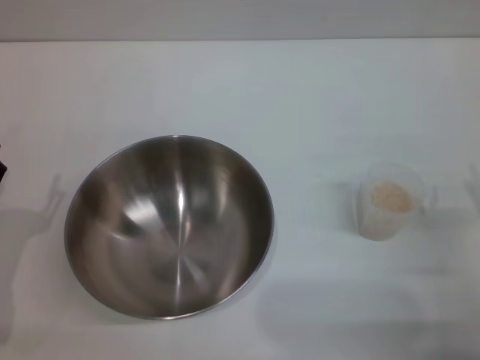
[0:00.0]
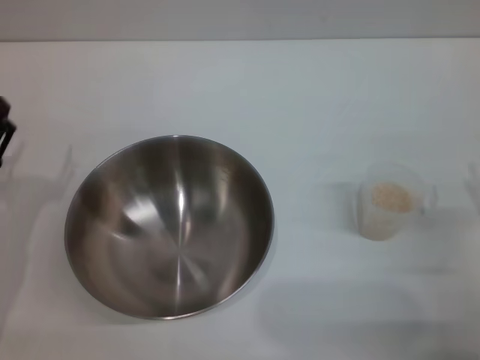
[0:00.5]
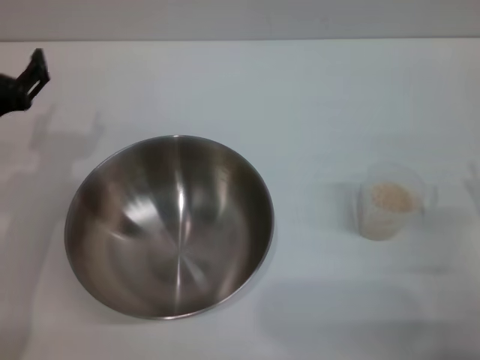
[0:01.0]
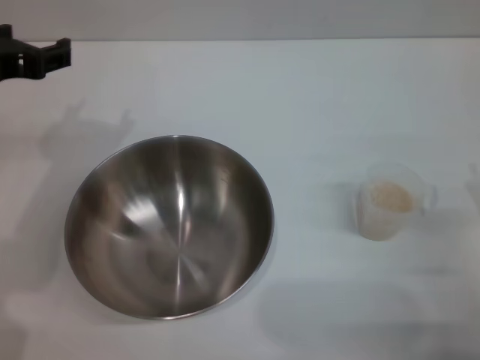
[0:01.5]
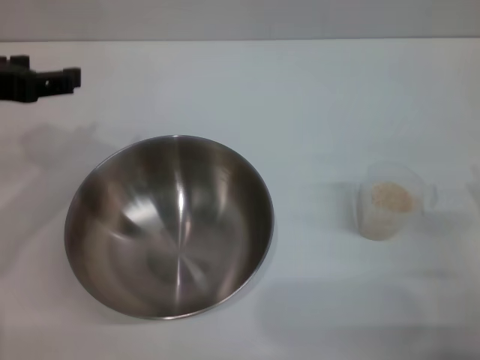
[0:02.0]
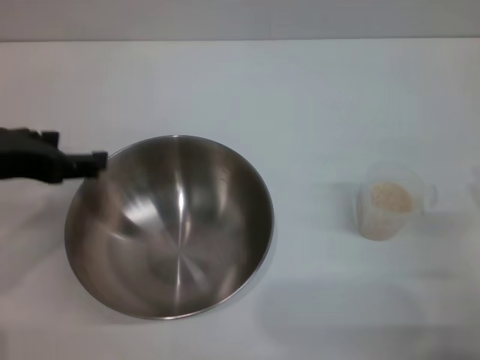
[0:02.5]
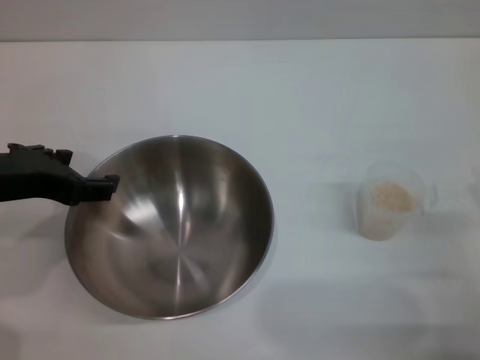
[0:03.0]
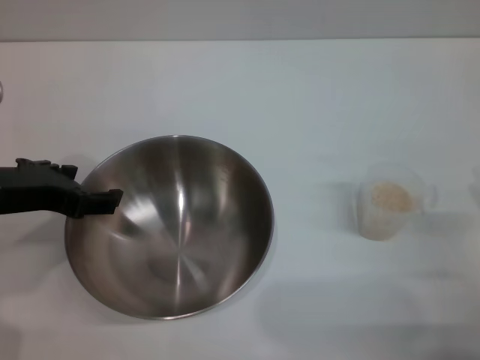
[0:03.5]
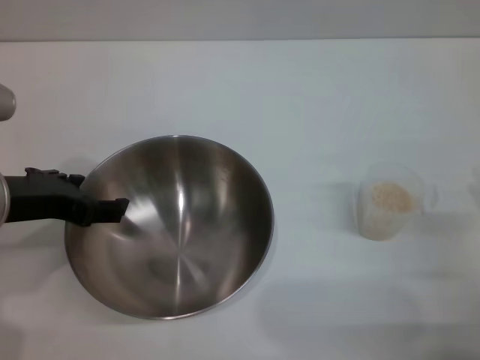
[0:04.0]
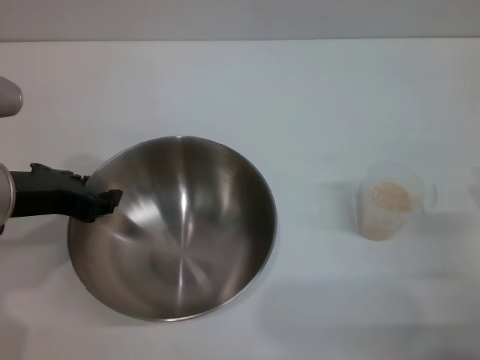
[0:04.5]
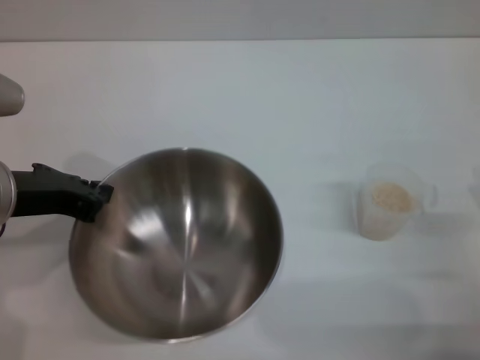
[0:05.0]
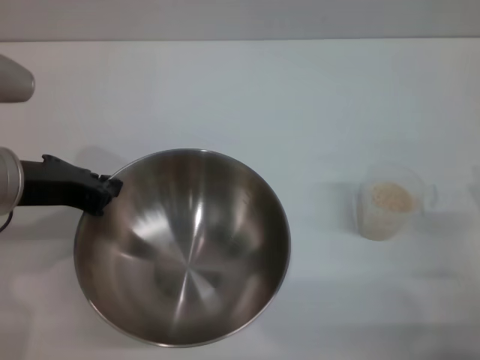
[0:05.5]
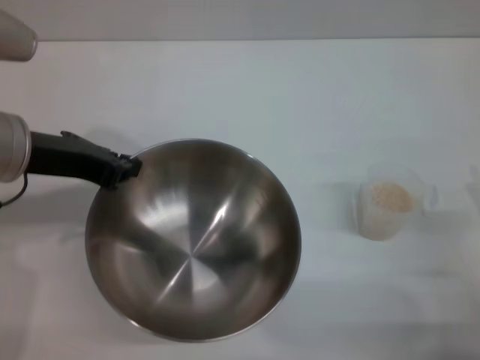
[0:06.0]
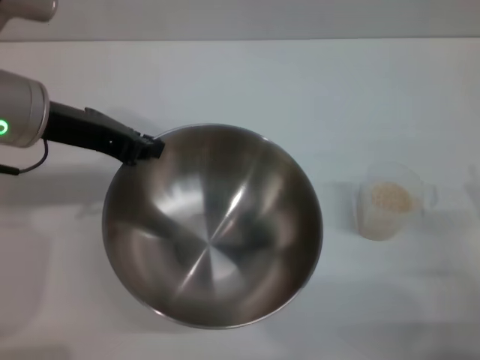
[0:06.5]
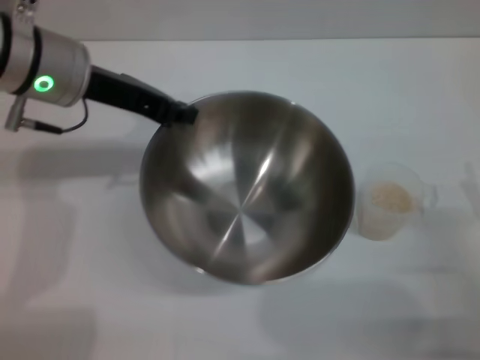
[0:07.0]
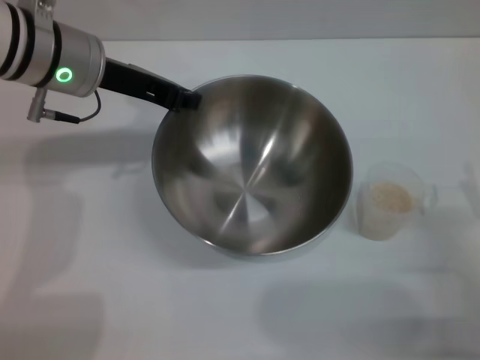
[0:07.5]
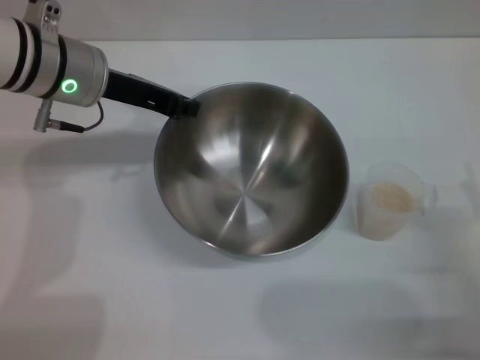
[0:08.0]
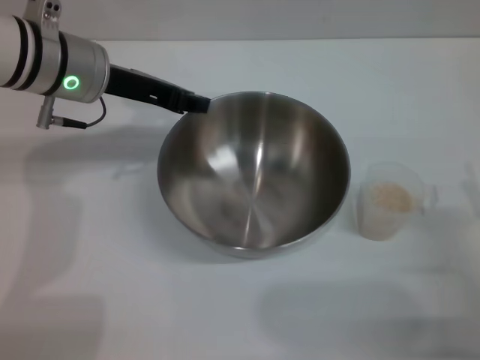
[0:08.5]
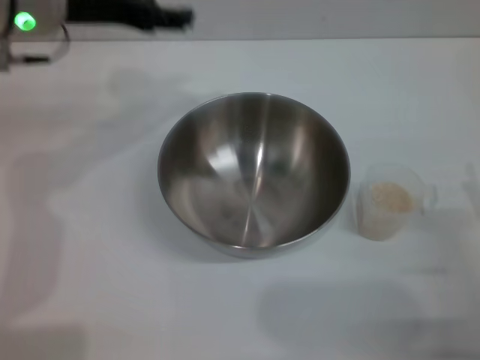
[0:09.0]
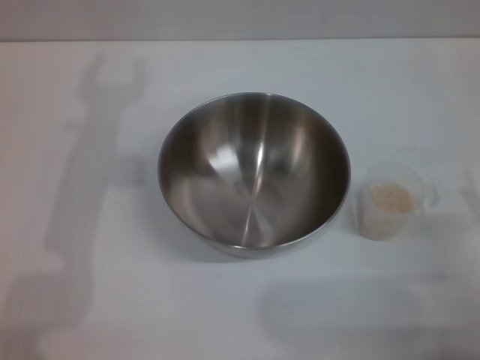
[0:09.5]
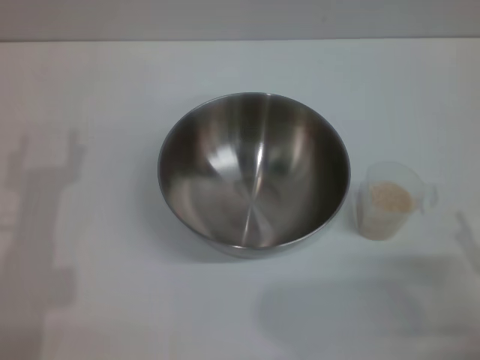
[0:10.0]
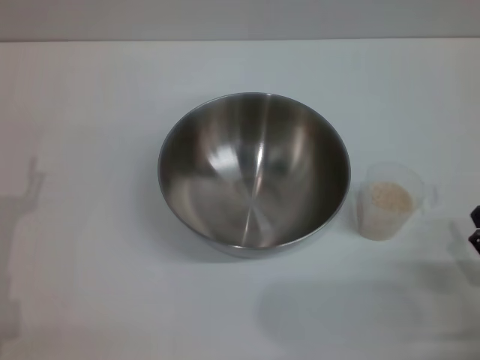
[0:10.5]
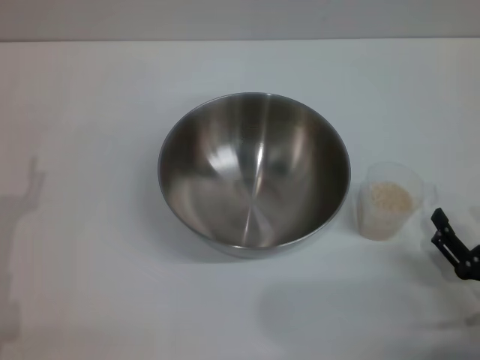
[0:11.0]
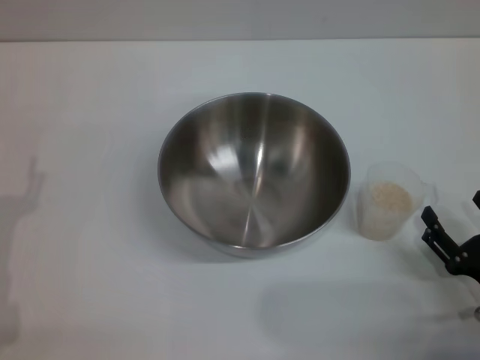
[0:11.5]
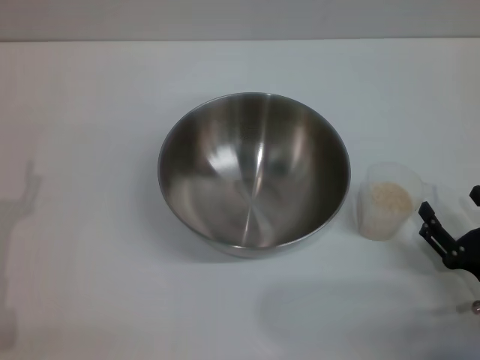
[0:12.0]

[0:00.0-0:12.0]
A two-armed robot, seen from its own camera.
Task of the whole recording: Place the bowl in the middle of the table with one hand and pour the rice from the grain cup into it with the other hand.
Step, 0:07.0 to 0:08.5: Pick up the bowl with the left gripper.
0:00.0 to 0:02.0: The left gripper travels upward and forward by approximately 25 cm.
0:02.0 to 0:04.0: The left gripper is displaced downward by some 5 cm.
0:04.0 to 0:06.0: The left gripper closes.
0:06.0 to 0:08.0: The left gripper travels forward by approximately 10 cm.
0:08.0 to 0:10.0: The right gripper goes approximately 5 cm backward. Meanwhile the left gripper is displaced backward, downward and to the left by some 20 cm, and opens its fingers.
0:10.0 to 0:12.0: The right gripper ends up approximately 5 cm from where it was.

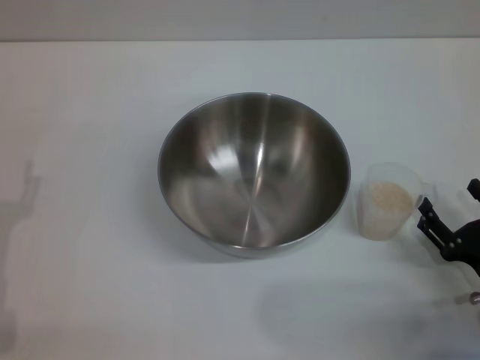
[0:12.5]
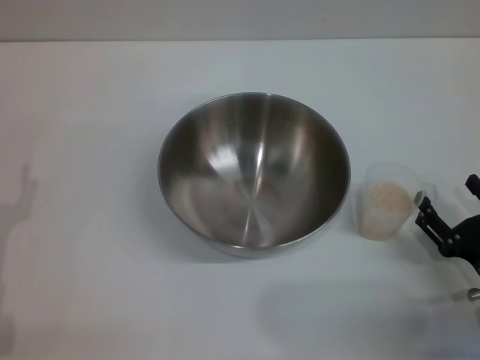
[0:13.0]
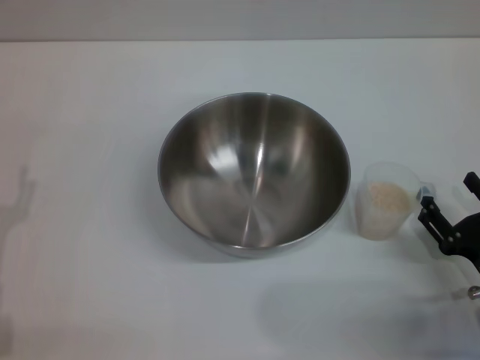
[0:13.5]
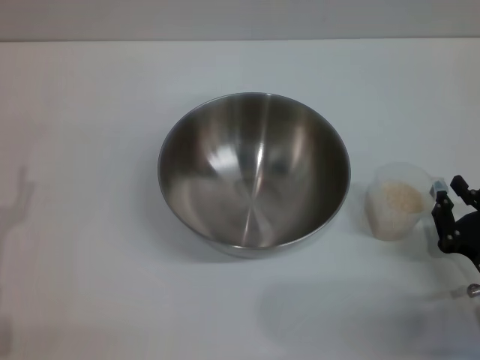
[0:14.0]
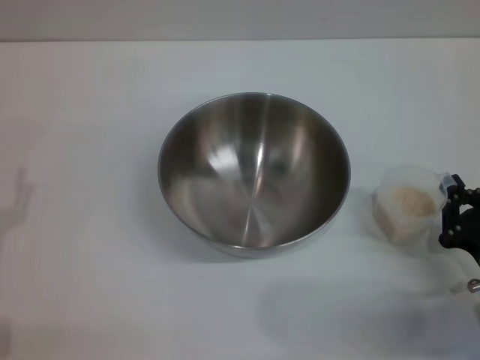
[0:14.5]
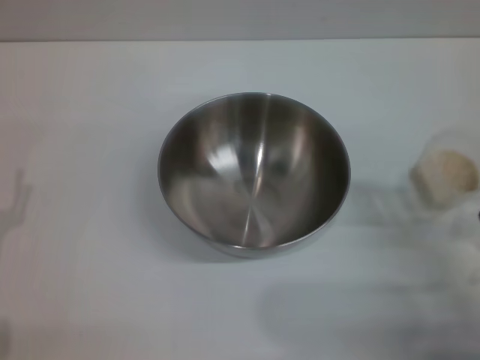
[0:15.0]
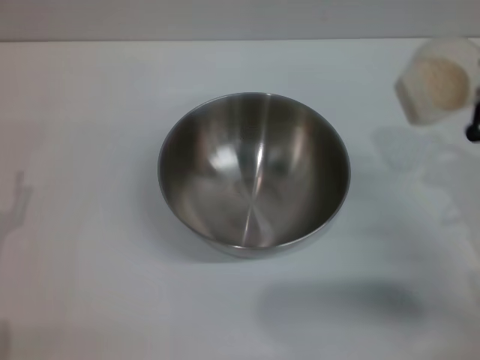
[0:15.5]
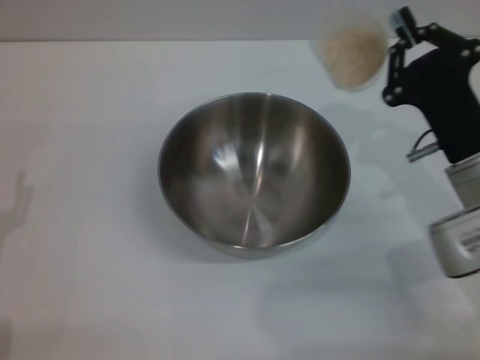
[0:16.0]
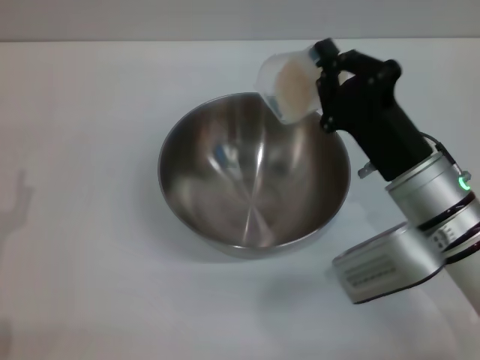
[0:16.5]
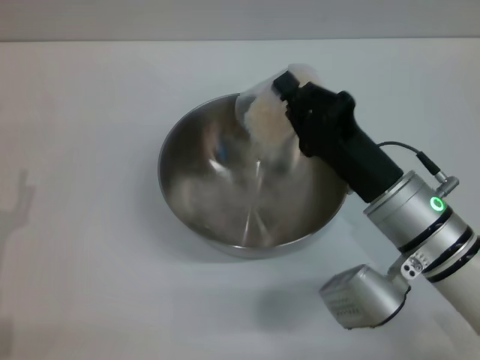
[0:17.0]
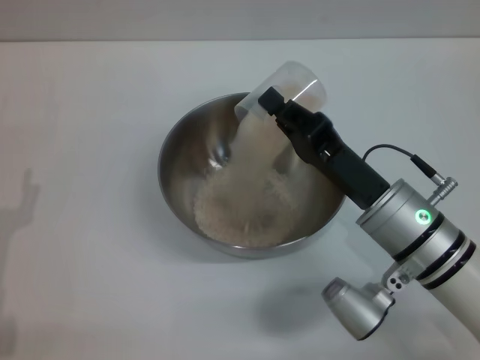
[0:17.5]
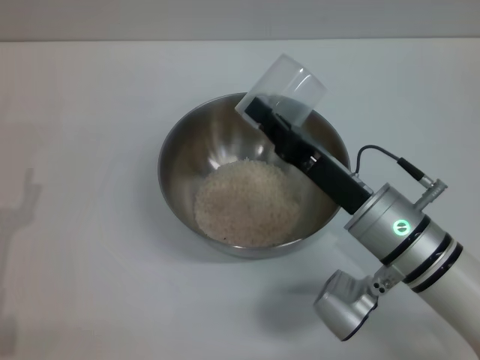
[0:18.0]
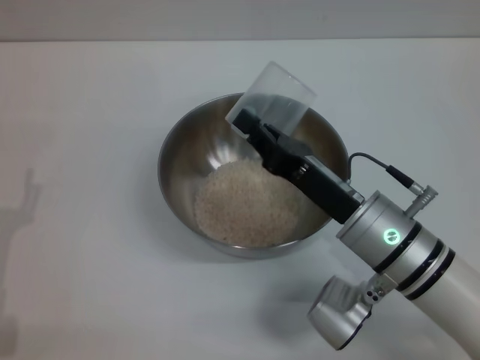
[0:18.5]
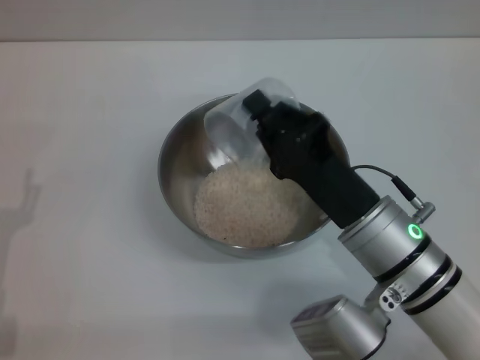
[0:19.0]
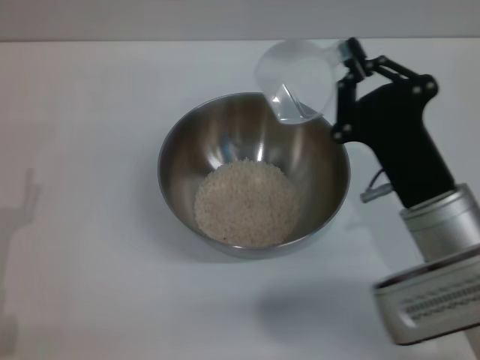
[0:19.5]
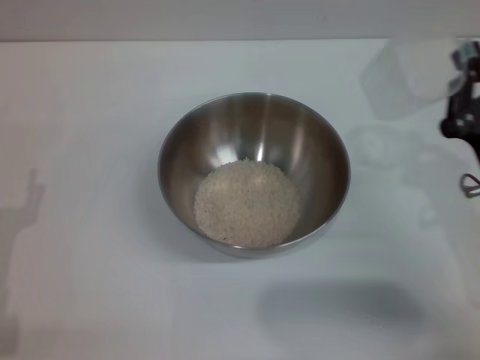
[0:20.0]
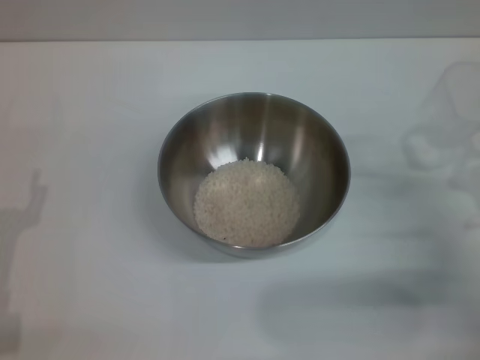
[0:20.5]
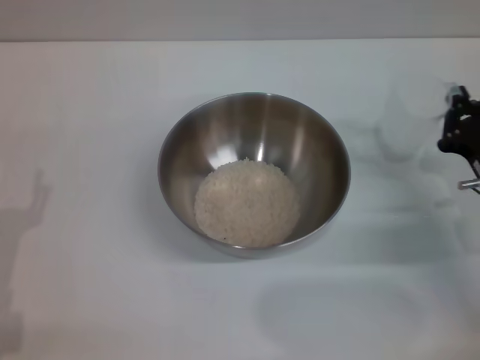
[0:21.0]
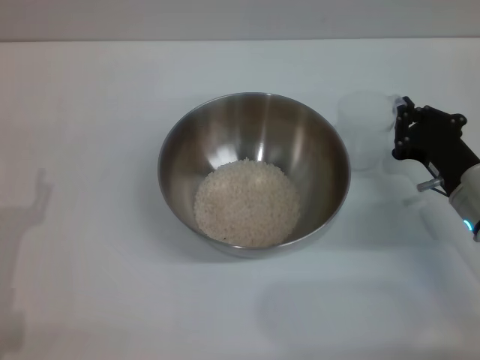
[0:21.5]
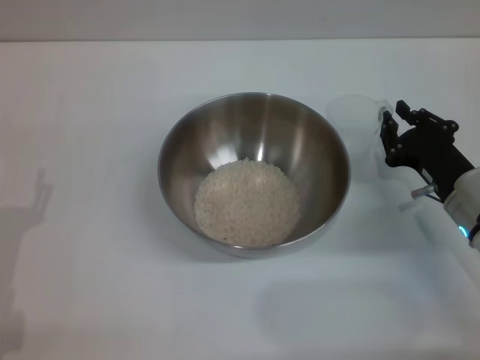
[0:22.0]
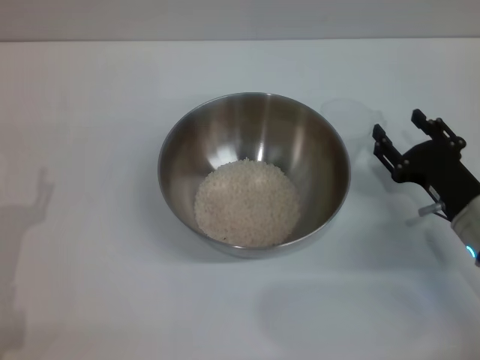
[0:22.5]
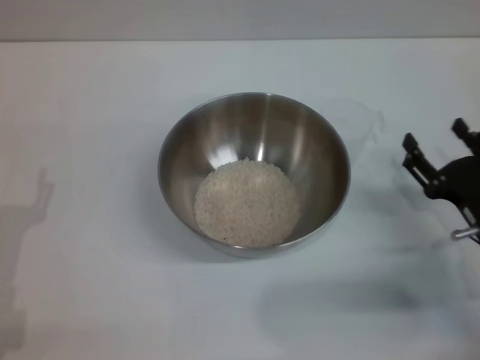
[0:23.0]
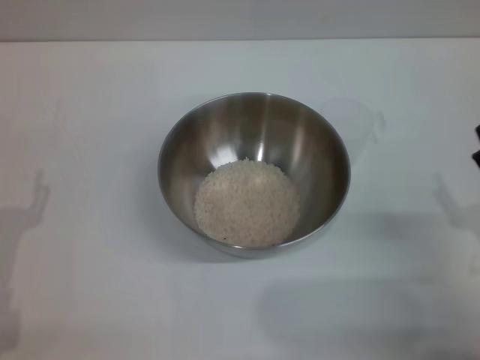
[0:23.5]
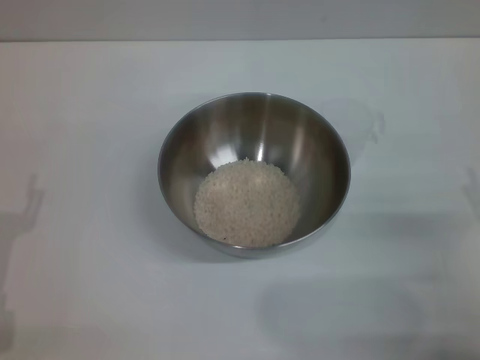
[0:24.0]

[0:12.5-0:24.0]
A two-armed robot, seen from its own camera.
Task of the whole recording: Place the bowl in the middle of the table with one hand and pour the rice from the grain cup into it with the other hand.
Step, 0:12.5 to 0:15.5: Pick up the cup with rice in it with the right gripper.
Step, 0:16.0 to 0:19.5: Pour the rice from the cup into the bowl with the right gripper.
Step, 0:20.0 to 0:22.5: Place the cup on the table with the right gripper.
0:12.5 to 0:14.5: The right gripper closes its fingers.
0:14.5 to 0:16.5: The right gripper shifts roughly 15 cm to the left, forward and upward.
0:18.5 to 0:20.0: The right gripper goes about 10 cm to the right.
0:20.0 to 0:22.0: The right gripper moves forward, roughly 5 cm.
0:22.0 to 0:24.0: The right gripper moves backward, approximately 10 cm, and opens.
